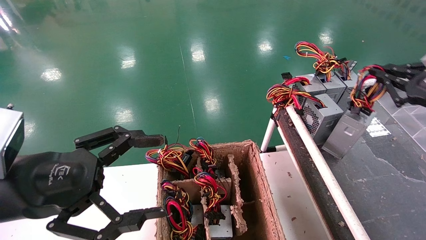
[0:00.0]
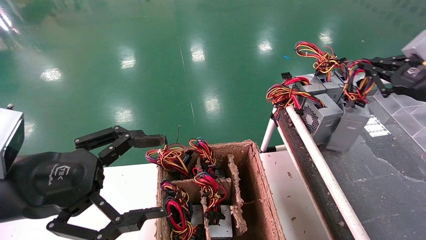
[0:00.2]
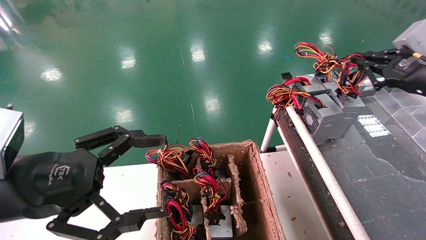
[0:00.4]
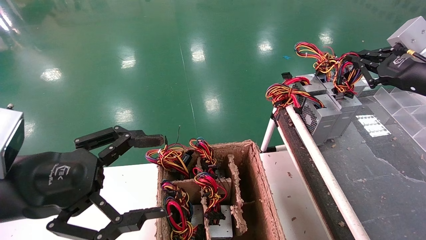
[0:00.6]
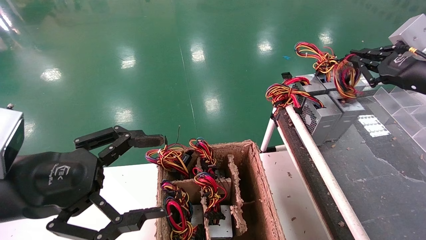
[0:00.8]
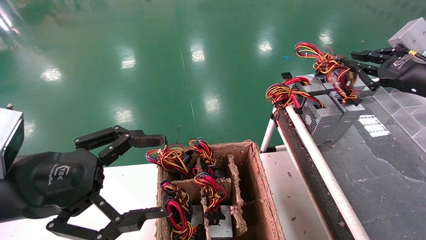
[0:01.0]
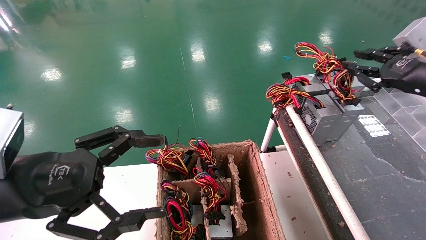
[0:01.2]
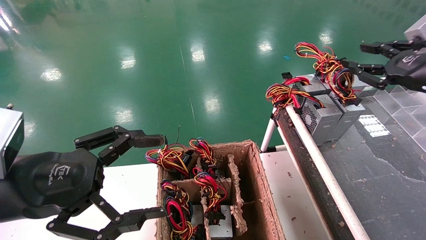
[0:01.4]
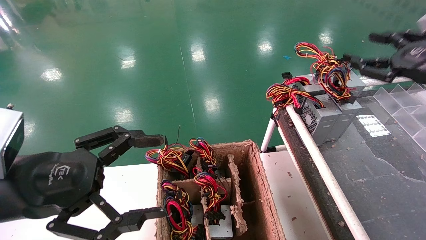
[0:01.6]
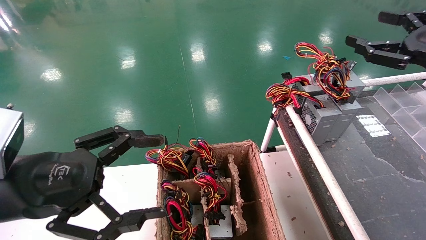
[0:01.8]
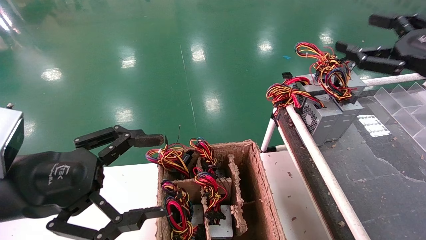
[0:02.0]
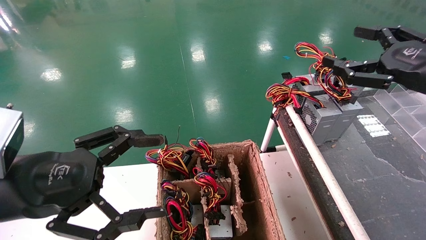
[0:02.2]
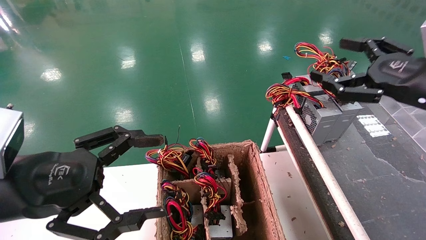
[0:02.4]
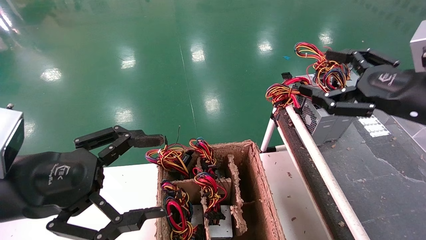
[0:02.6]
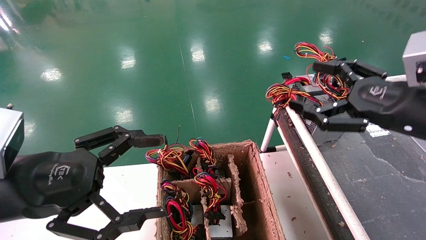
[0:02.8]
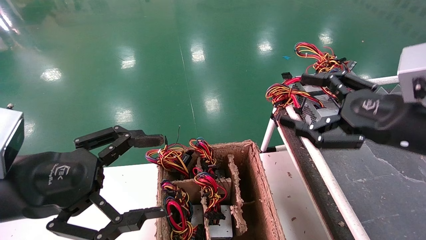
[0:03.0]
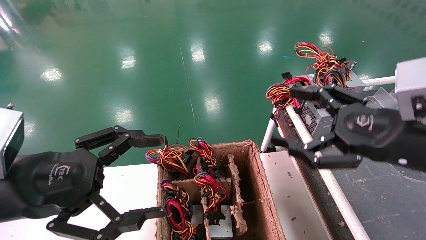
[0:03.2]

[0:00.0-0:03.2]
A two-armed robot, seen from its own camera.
0:00.0 to 0:01.6: The right gripper shifts by about 5 cm, and opens up.
0:01.6 to 0:03.2: The right gripper goes about 15 cm to the left, backward and downward, and opens its fingers.
